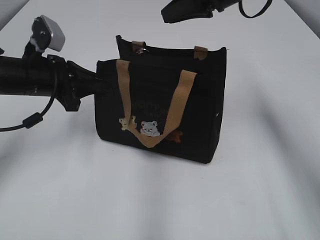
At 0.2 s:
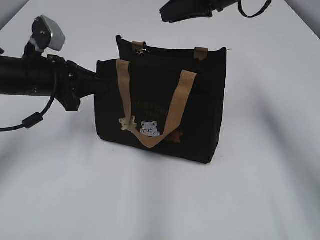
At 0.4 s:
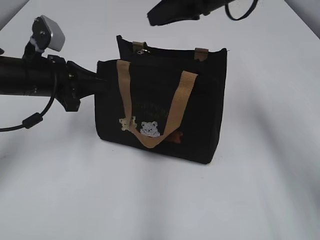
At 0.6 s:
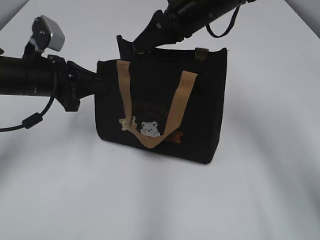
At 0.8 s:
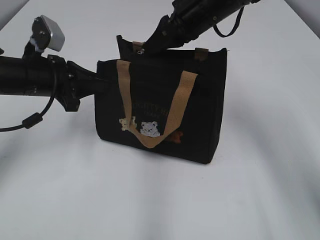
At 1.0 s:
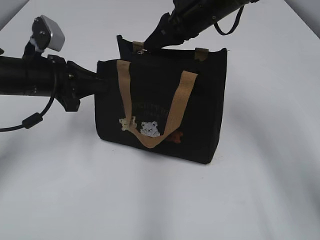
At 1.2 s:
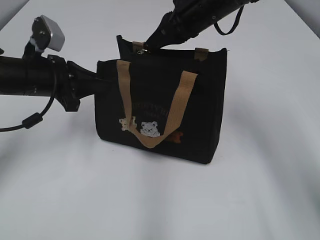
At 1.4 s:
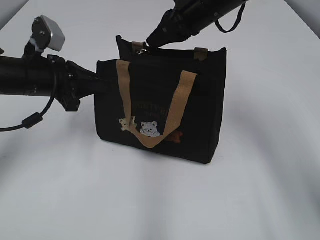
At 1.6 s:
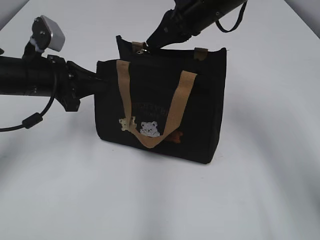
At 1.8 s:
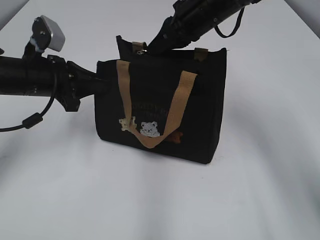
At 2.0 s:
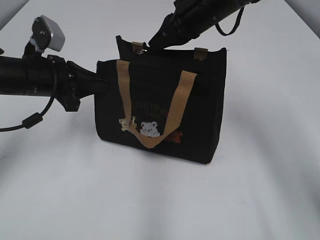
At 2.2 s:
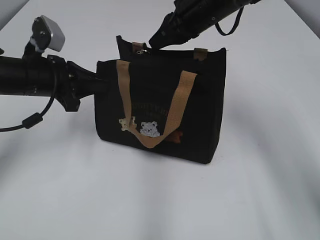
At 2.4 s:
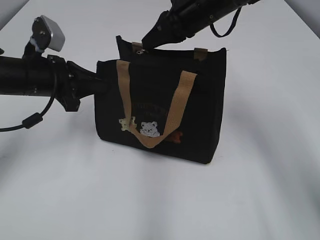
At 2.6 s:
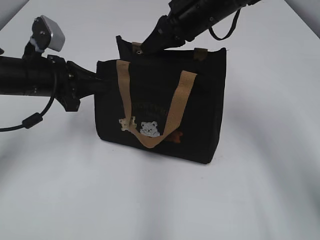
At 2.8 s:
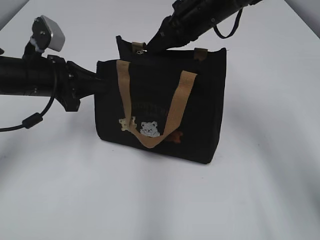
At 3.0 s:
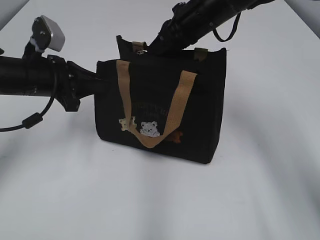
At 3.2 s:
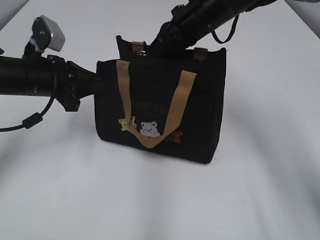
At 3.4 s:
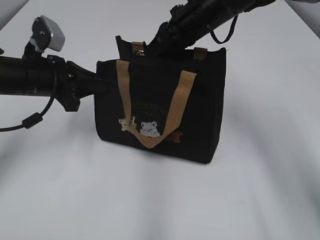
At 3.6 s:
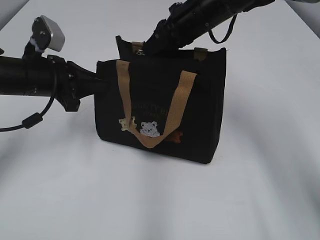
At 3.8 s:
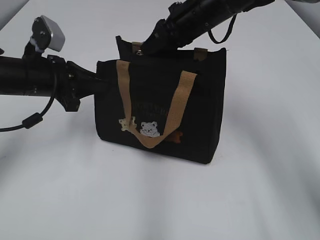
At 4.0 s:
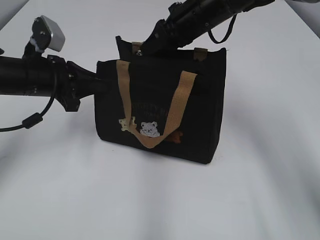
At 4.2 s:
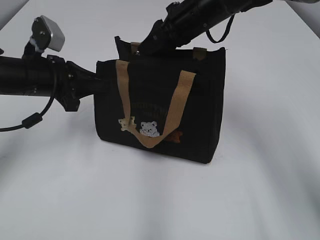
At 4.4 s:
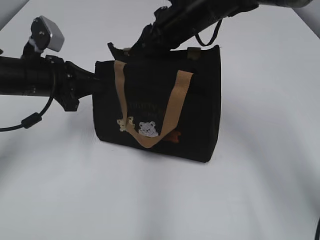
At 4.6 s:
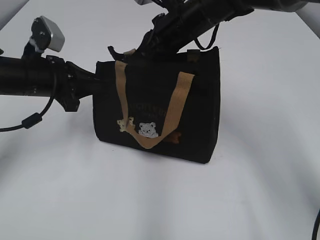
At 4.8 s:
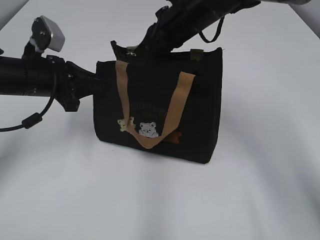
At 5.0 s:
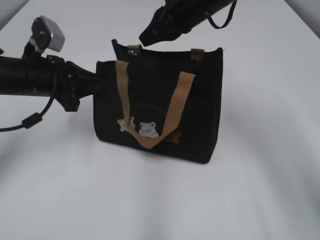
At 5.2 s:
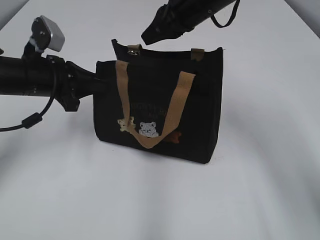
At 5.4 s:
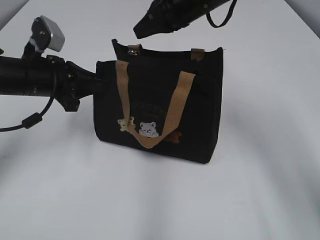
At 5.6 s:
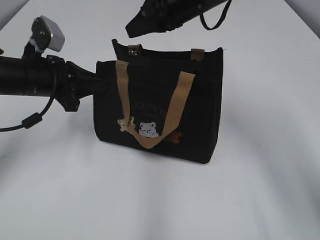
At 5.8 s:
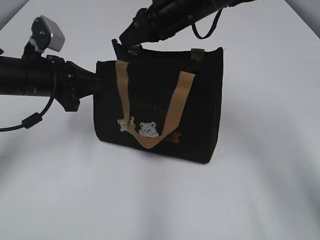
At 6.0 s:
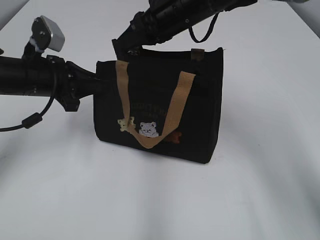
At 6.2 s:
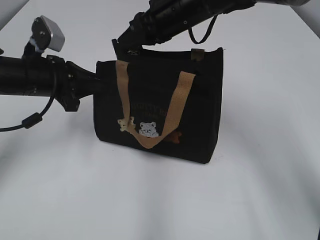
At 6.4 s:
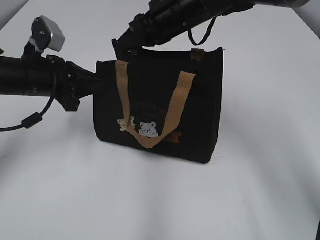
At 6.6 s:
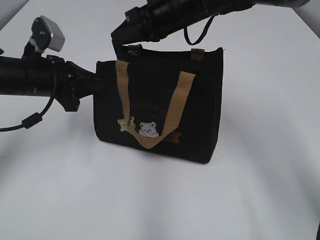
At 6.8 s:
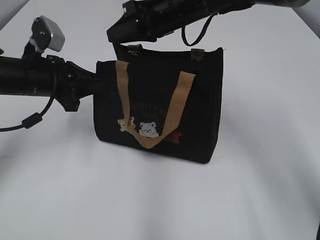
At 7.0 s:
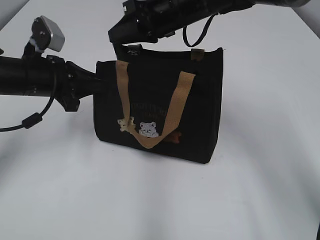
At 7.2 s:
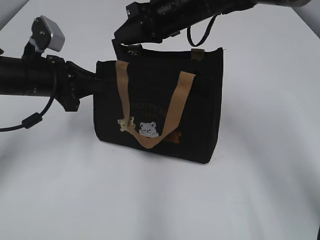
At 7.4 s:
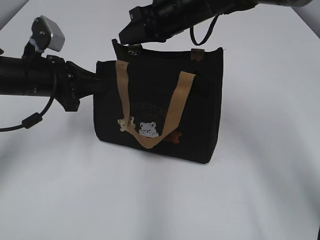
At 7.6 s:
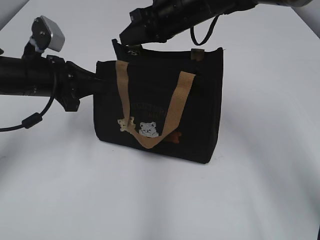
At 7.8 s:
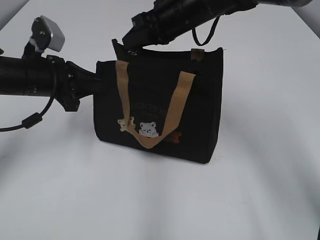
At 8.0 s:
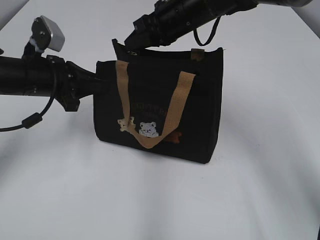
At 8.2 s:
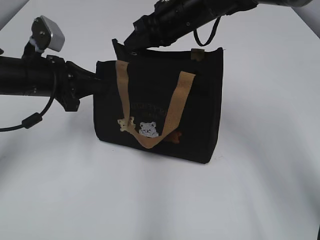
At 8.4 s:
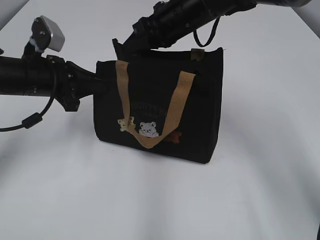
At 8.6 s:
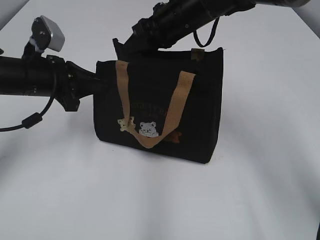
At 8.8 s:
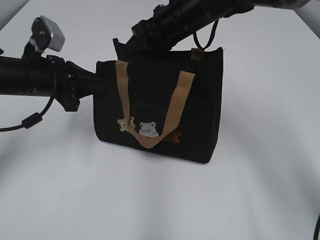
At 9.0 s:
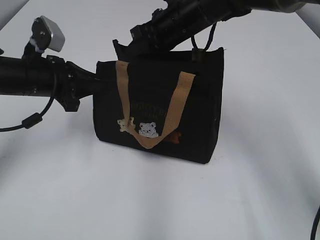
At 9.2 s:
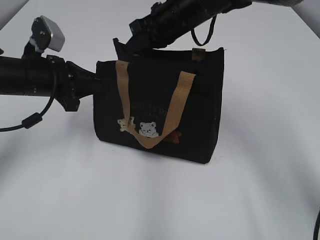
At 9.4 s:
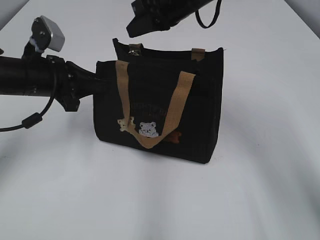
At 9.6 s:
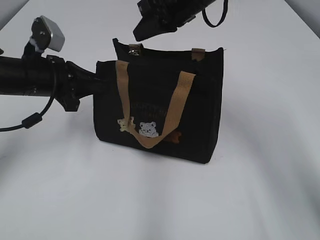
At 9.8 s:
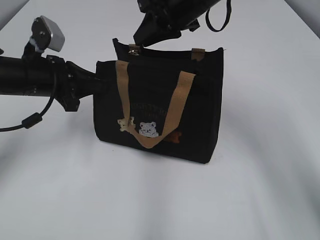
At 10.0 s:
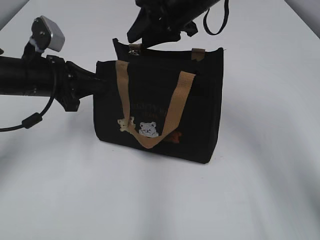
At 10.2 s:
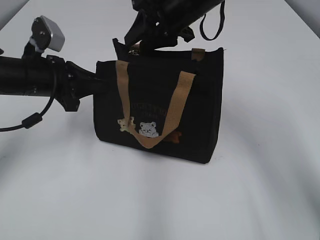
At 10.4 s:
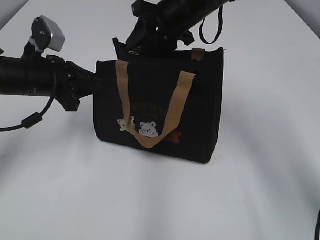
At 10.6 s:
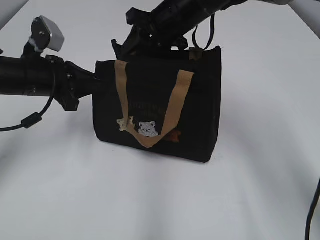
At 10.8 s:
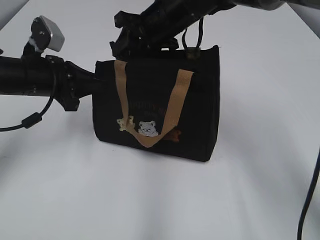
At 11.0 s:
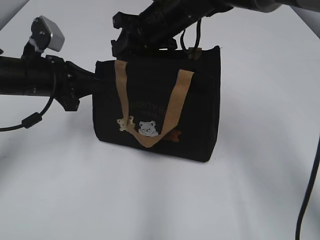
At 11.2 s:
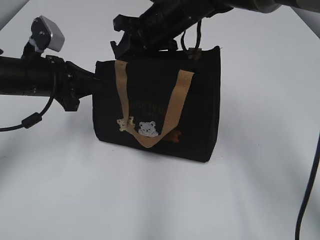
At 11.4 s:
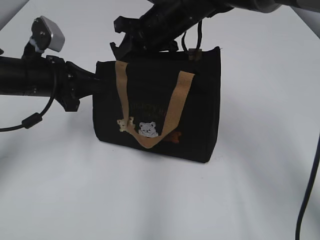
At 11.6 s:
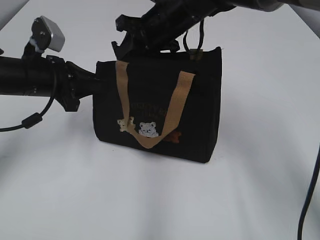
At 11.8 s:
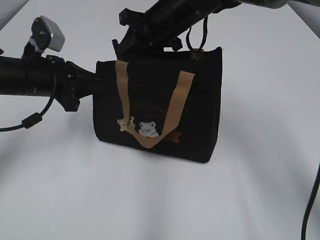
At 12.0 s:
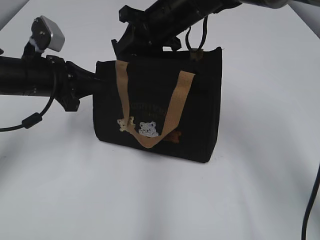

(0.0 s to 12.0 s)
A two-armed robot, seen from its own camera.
0.0 s - 1.6 s: The right gripper changes place by some 5 cm, and closes its fingers.
1.6 s - 6.0 s: There are only small adjustments of the grippers.
6.0 s - 7.6 s: There are only small adjustments of the grippers.
7.6 s - 9.0 s: The right gripper closes.
9.0 s - 10.4 s: The right gripper opens its fingers.
10.4 s - 12.0 s: The grippers stay close to where they were, moving slightly.

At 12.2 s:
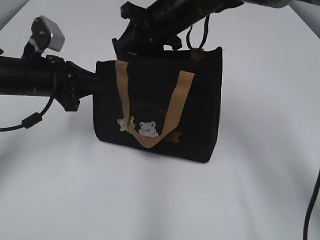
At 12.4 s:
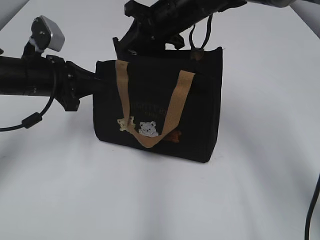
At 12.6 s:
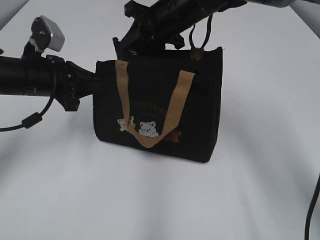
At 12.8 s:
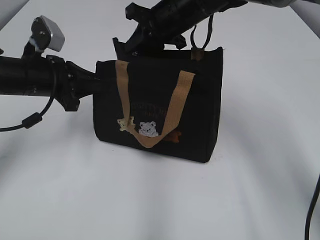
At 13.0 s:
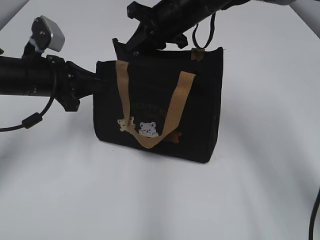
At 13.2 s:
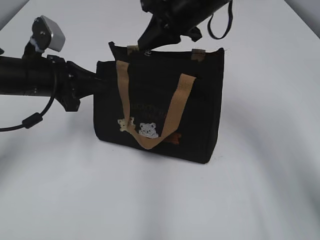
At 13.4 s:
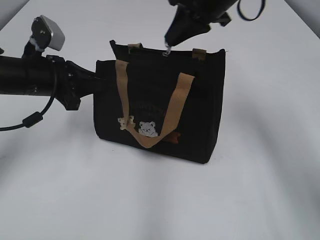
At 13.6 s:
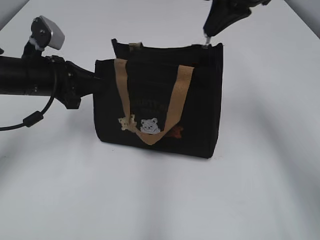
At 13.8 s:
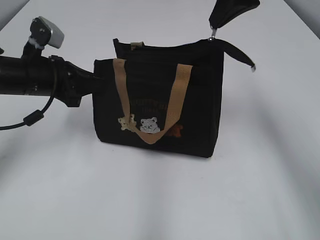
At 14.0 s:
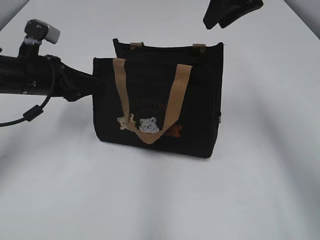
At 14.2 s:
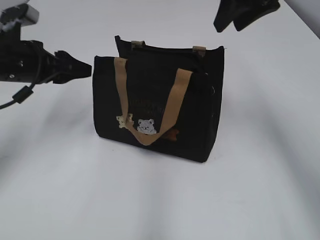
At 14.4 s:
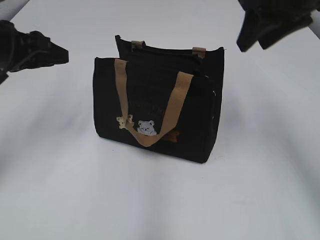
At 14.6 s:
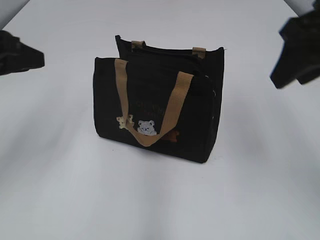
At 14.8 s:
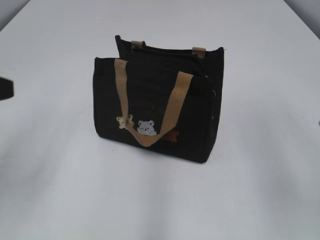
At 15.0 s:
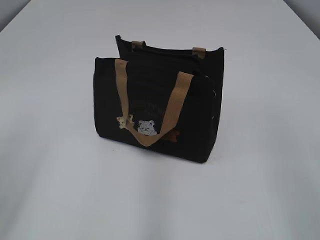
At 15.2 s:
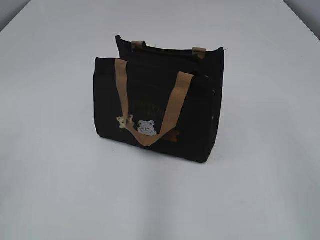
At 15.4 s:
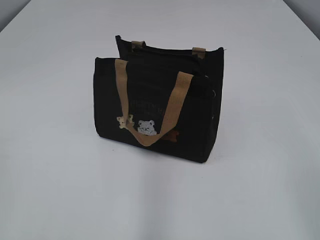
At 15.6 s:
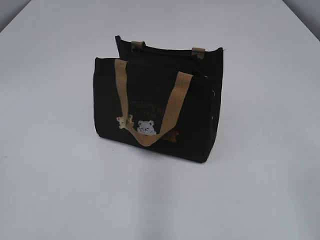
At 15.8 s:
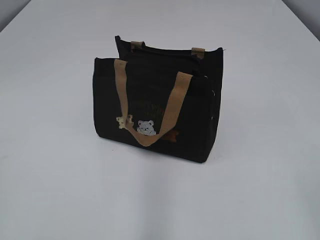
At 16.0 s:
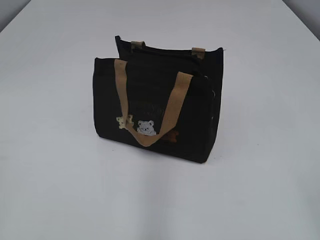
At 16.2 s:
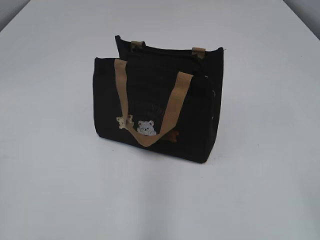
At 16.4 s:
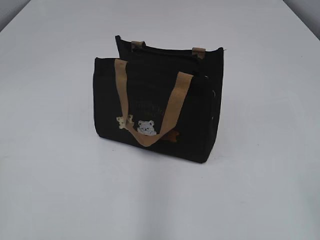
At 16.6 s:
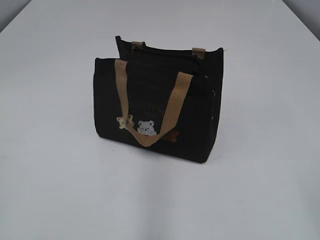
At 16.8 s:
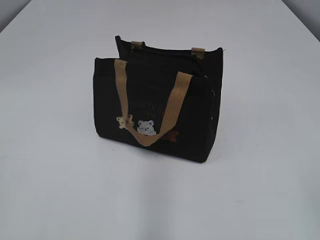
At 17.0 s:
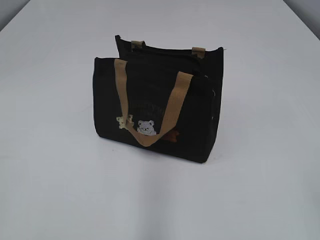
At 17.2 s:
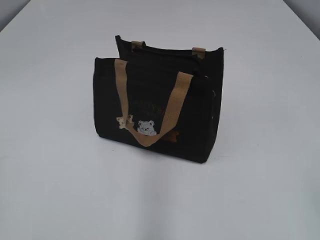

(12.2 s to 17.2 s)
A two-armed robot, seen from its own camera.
Step, 14.2 s - 14.4 s: Hold the bag with your left hand.
12.2 s - 13.8 s: The right gripper goes roughly 15 cm to the right and upward, and closes up.
13.8 s - 15.6 s: Both grippers travel together backward, approximately 35 cm. The right gripper opens its fingers. Meanwhile the left gripper opens up.
